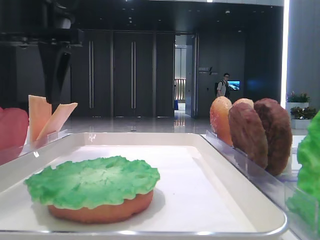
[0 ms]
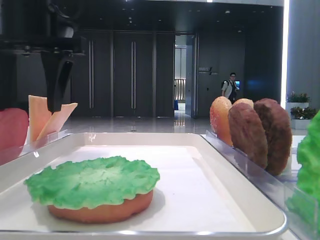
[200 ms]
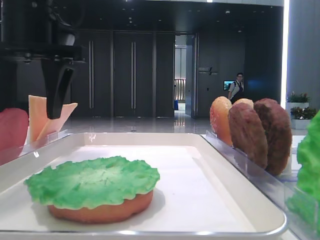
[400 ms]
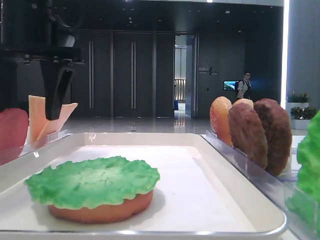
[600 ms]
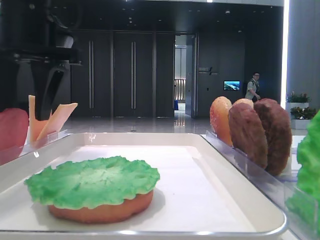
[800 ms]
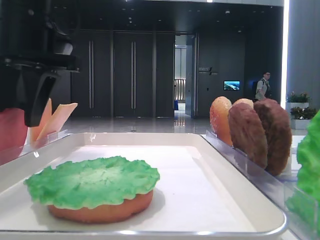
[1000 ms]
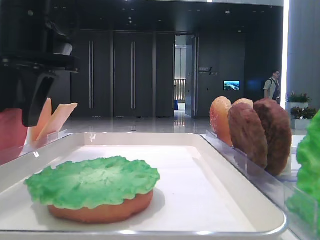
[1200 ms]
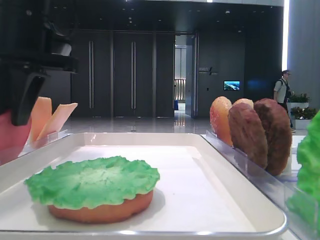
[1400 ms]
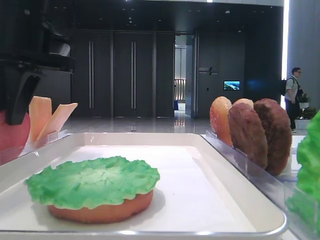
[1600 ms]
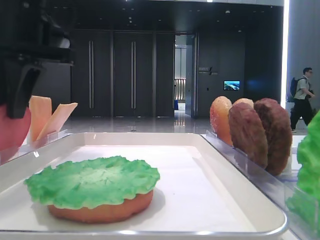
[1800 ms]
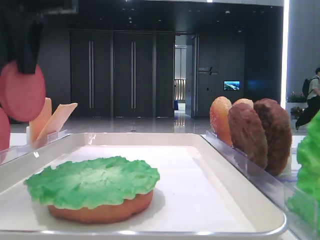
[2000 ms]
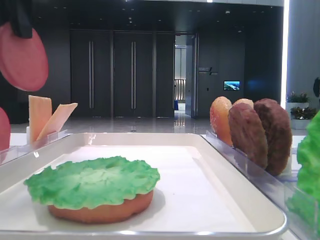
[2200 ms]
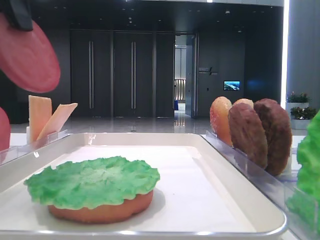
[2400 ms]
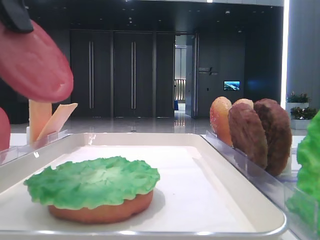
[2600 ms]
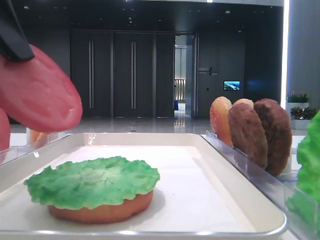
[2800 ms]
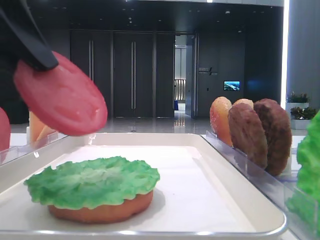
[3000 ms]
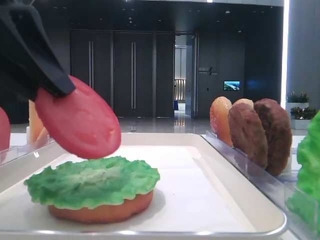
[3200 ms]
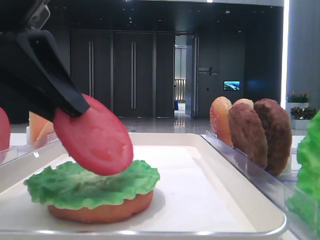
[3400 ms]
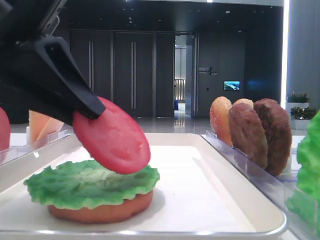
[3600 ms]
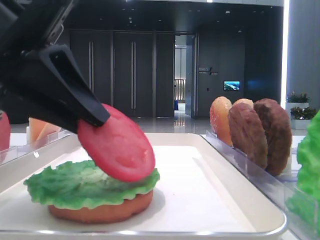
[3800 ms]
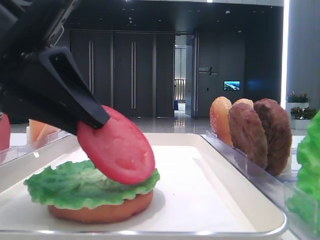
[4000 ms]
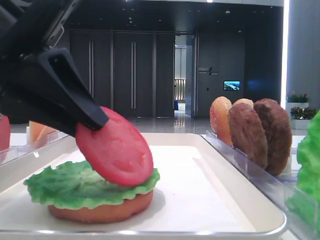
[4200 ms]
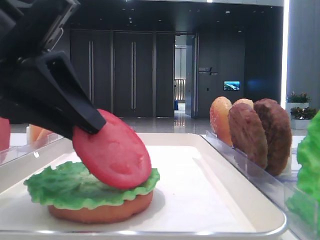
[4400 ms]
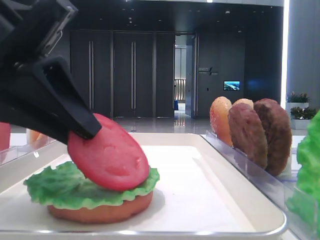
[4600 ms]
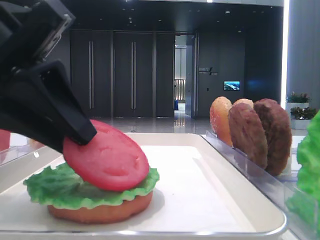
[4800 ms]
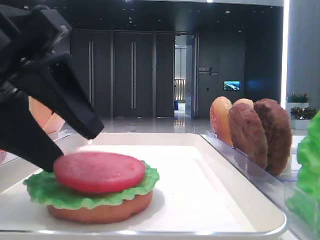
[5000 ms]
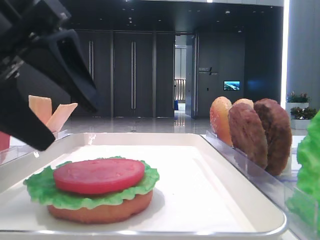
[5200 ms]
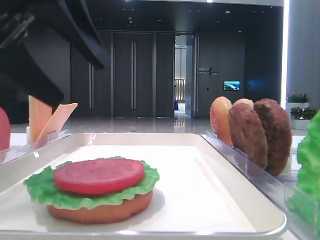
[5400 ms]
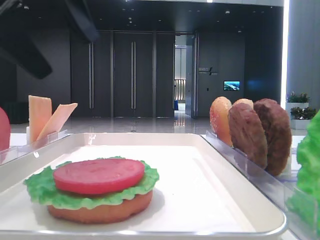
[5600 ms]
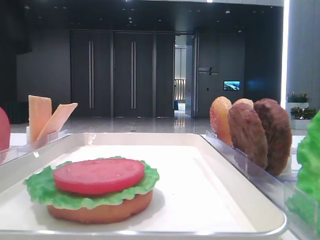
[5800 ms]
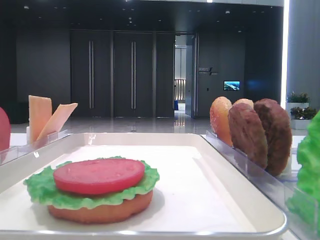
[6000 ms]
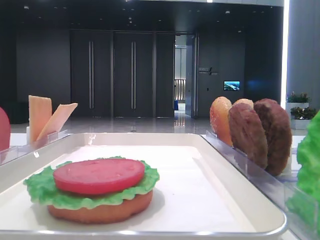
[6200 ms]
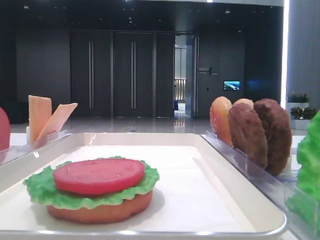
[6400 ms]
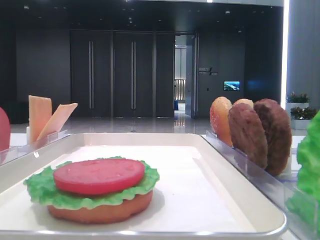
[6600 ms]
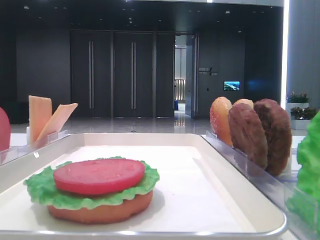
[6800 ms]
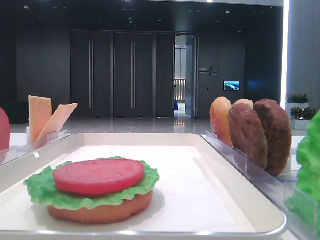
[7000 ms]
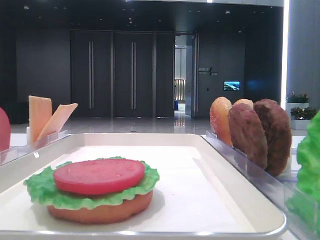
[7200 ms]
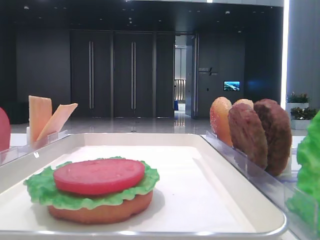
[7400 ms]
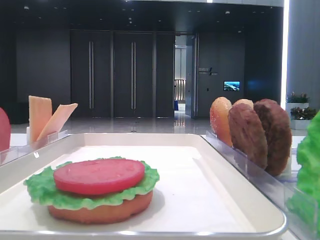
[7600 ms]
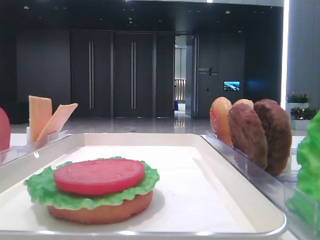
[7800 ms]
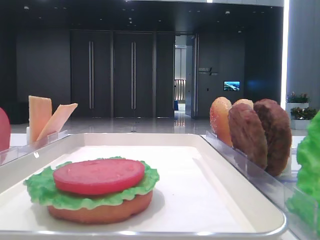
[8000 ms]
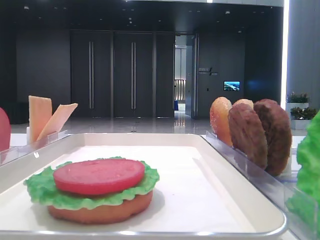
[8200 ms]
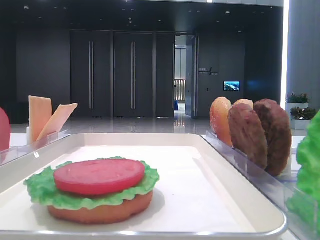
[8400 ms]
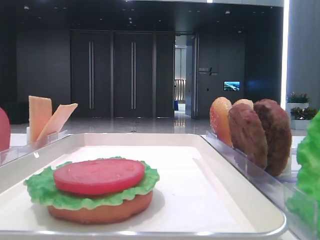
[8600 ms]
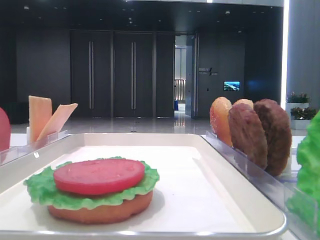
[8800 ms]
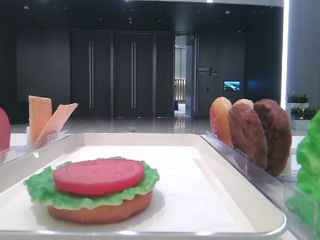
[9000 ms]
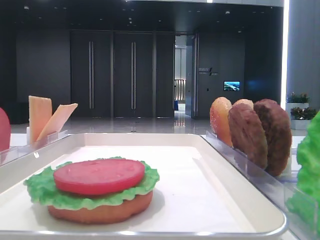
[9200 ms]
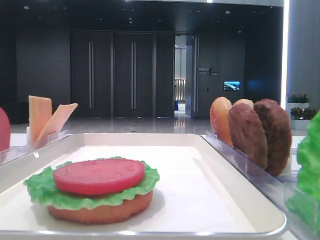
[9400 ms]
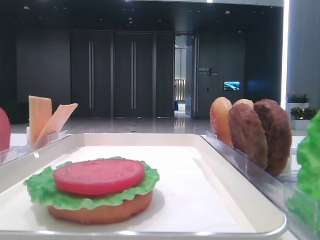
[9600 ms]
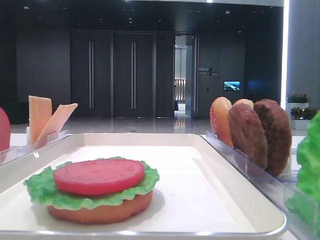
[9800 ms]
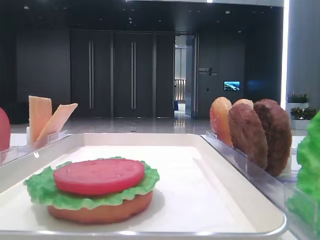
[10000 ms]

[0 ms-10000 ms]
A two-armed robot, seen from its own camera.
Step, 1400 ms to 5000 ms: Place the tomato slice on the lettuce leaf with the left hand.
0 ms to 1400 ms: The left gripper closes its fingers.
1400 ms to 2800 ms: The left gripper shifts about 15 cm backward.
2800 ms to 4200 ms: The left gripper is displaced downward by roughly 5 cm.
4200 ms to 5800 ms: The left gripper heads upward and to the left, covering roughly 15 cm, and opens its fingers.
5800 ms to 7200 ms: The left gripper moves backward, some 20 cm.
8600 ms to 10000 ms: The two grippers keep their place.

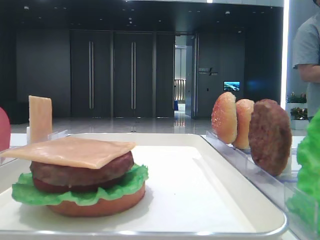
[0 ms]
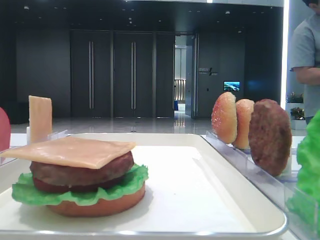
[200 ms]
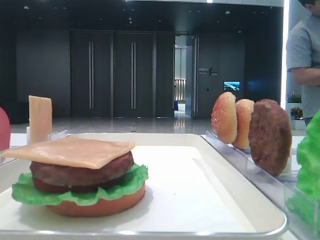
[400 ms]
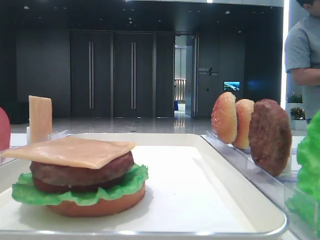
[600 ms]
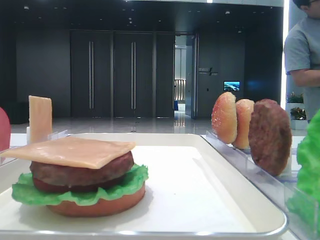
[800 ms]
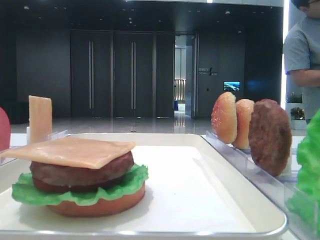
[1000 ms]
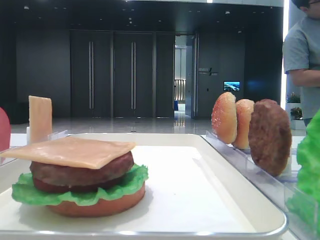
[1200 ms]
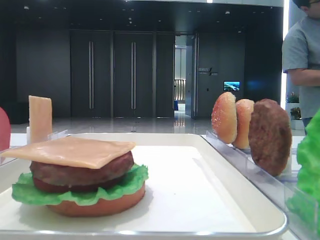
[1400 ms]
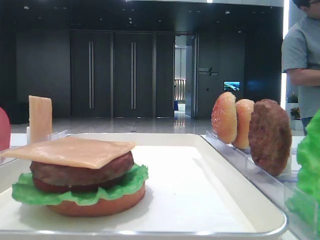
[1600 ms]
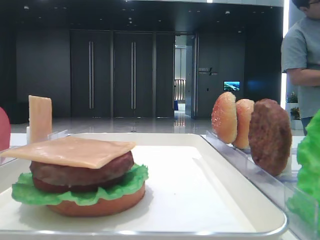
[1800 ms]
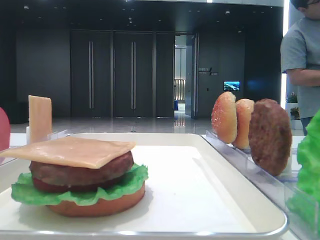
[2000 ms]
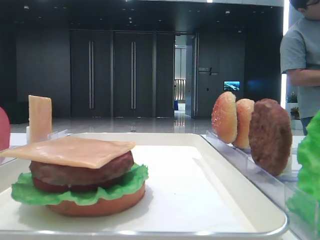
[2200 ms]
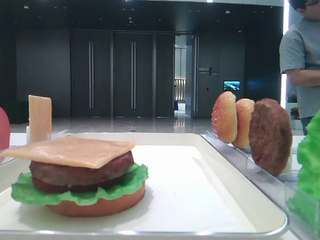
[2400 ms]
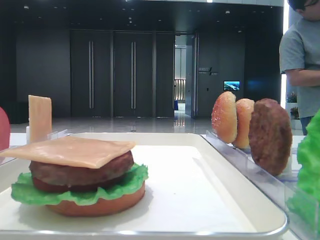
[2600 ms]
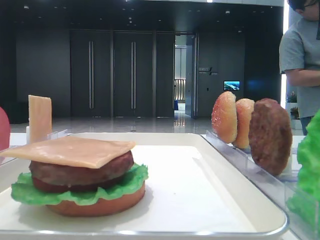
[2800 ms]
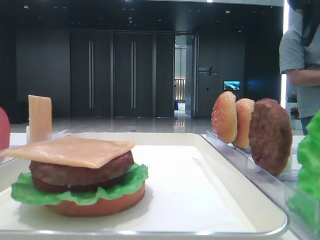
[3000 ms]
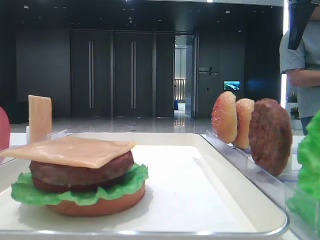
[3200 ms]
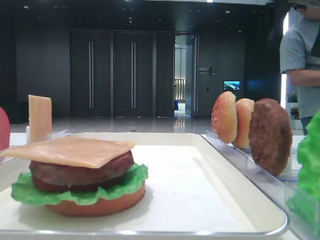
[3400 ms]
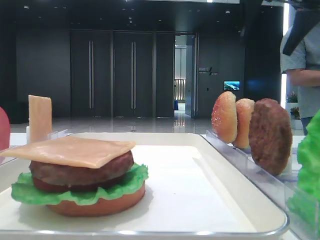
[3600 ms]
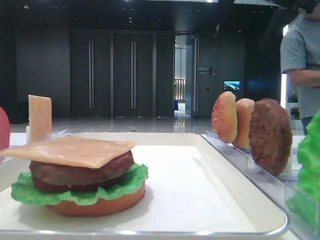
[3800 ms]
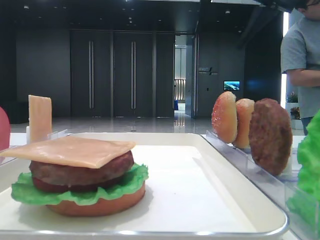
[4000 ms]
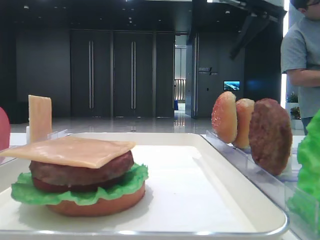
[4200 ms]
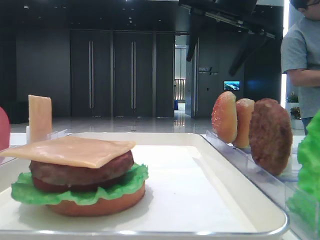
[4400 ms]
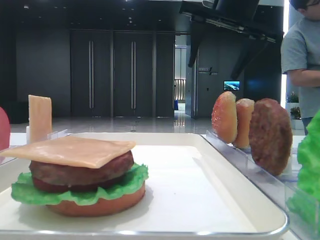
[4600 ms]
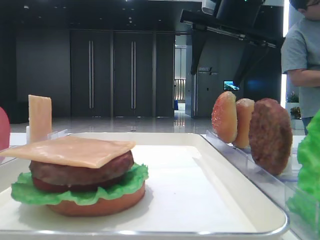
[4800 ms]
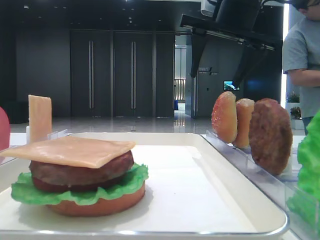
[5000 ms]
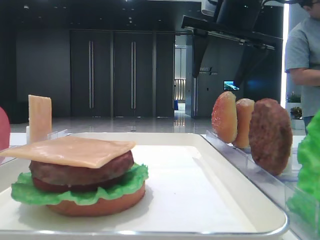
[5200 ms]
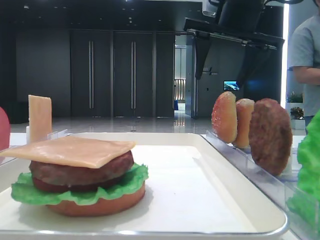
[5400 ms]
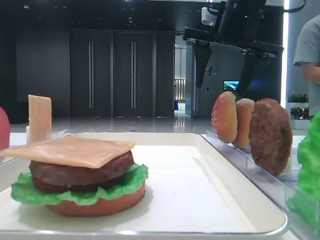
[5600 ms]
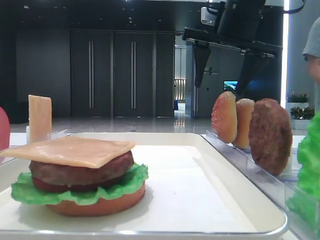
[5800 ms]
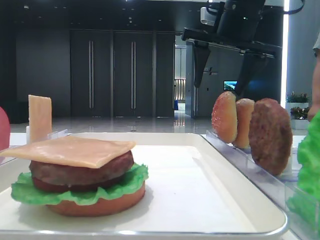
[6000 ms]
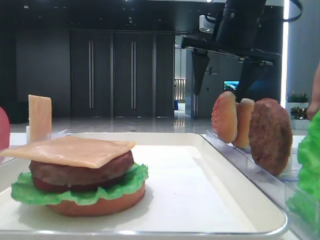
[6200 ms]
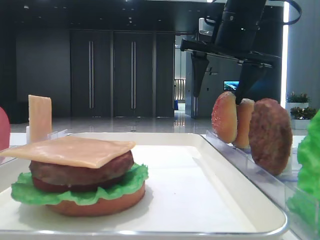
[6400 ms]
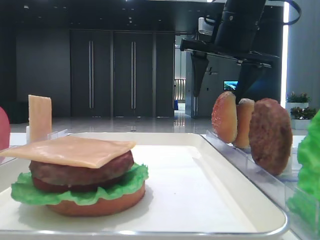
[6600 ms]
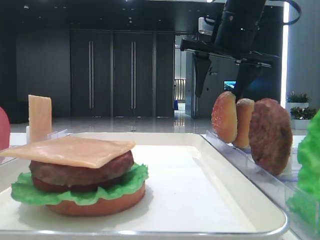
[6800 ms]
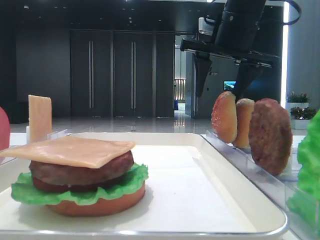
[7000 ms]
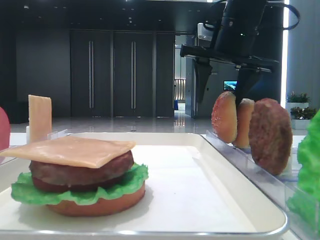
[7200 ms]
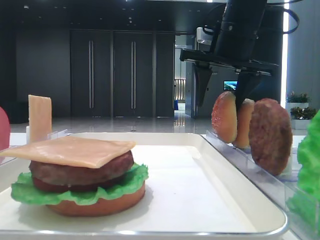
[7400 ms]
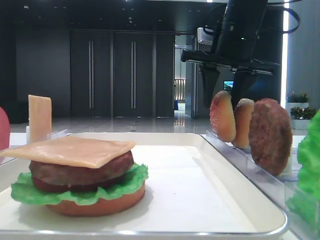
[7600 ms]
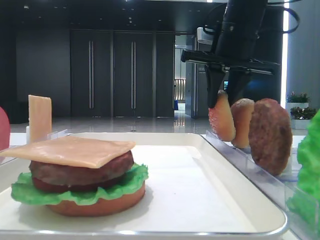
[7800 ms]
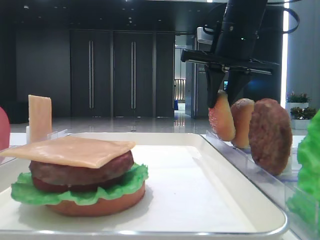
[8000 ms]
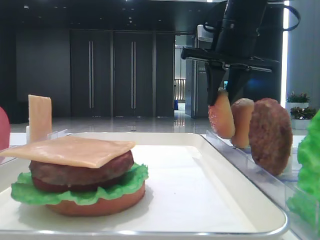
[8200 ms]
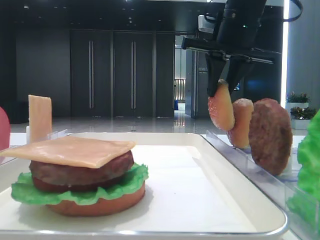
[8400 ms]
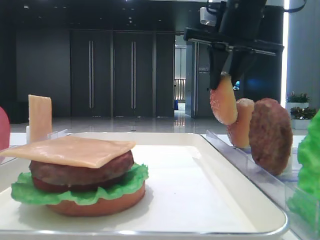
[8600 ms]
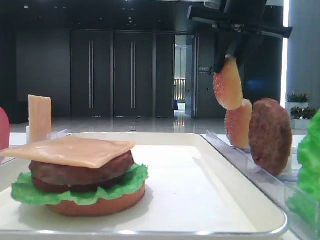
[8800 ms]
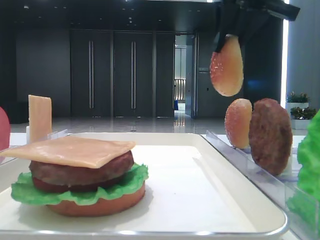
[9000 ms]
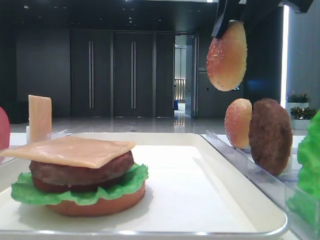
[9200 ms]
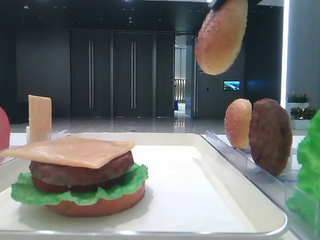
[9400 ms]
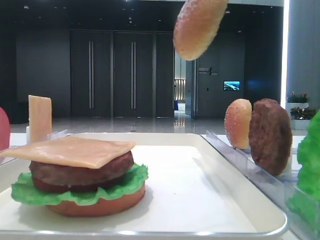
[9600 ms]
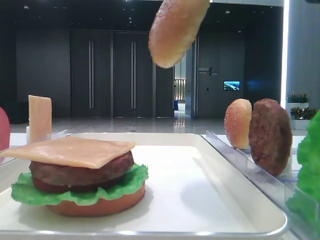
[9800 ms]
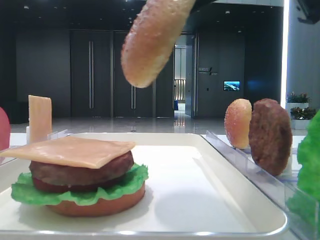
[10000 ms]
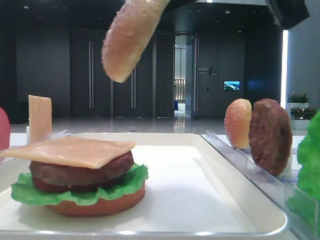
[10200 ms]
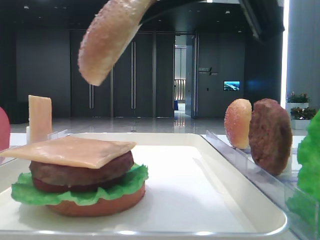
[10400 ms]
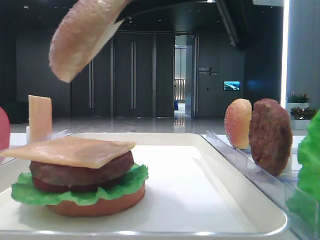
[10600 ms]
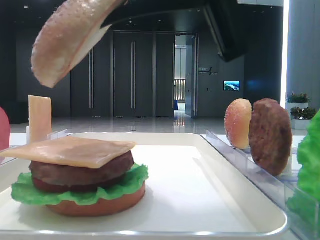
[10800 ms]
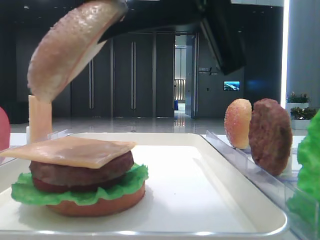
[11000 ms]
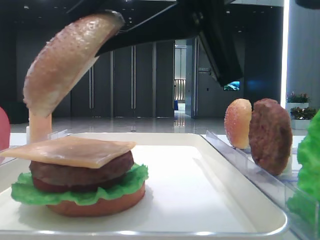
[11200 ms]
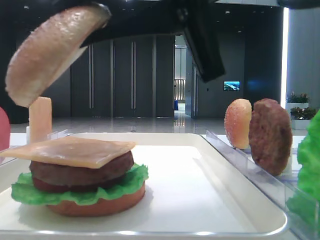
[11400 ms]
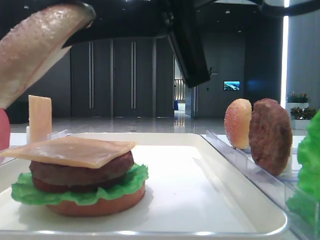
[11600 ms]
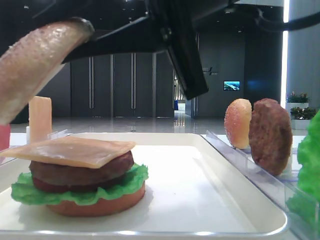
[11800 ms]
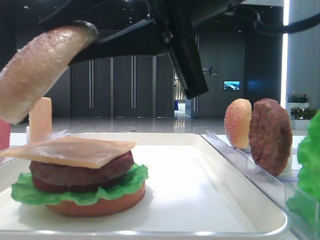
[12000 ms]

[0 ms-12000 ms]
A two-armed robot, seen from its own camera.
Step, 0 ms to 7600 ms: Pick up the top bread slice with the right hand.
1600 ms to 3000 ms: The right gripper moves forward, some 30 cm.
3000 ms to 4400 ms: The right gripper goes about 15 cm to the left.
4400 ms to 6000 ms: There are only small adjustments of the grippers.
6000 ms to 7600 ms: The right gripper closes up.
7600 ms to 9000 ms: The right gripper shifts some 10 cm upward and backward, and closes its fingers.
9000 ms to 10400 ms: The left gripper closes. Meanwhile the right gripper is displaced backward by approximately 15 cm.
10400 ms to 12000 ms: The right gripper shifts by some 5 cm.
